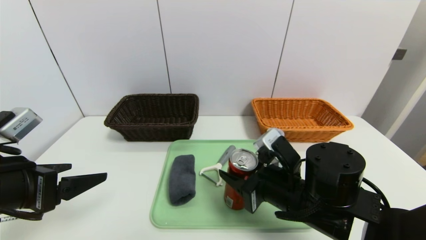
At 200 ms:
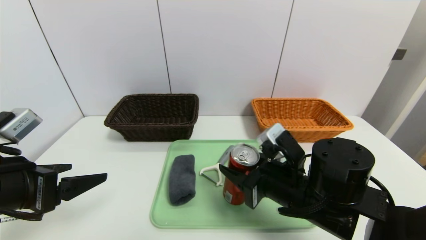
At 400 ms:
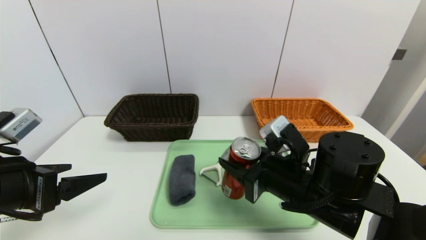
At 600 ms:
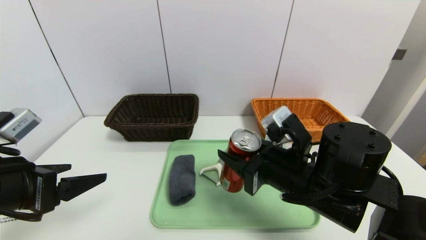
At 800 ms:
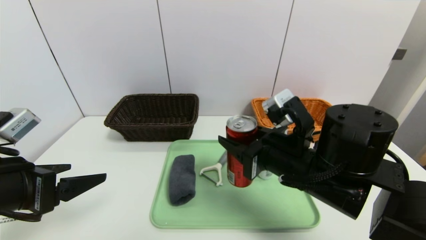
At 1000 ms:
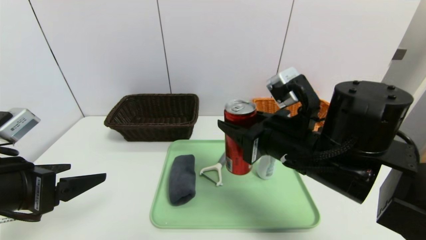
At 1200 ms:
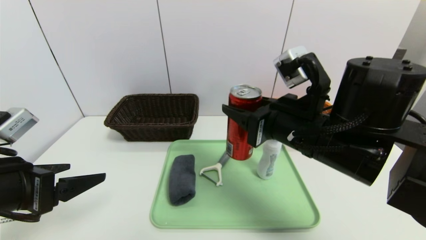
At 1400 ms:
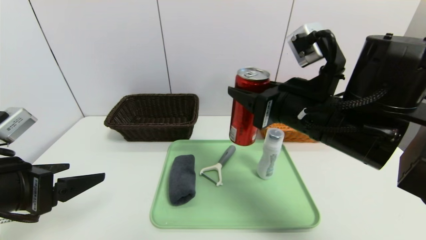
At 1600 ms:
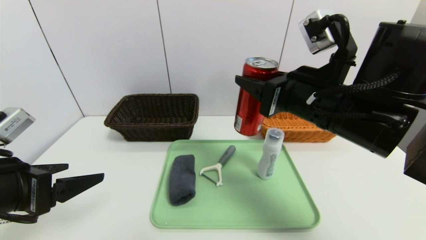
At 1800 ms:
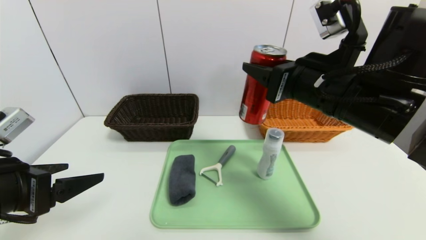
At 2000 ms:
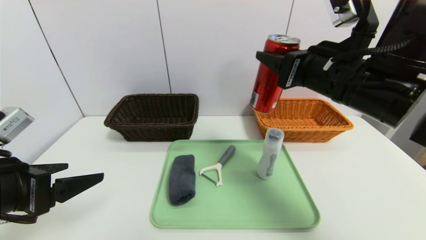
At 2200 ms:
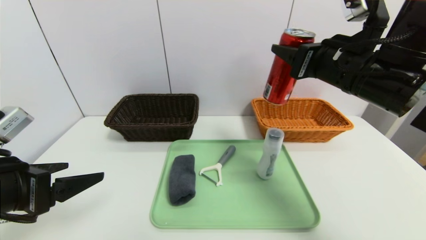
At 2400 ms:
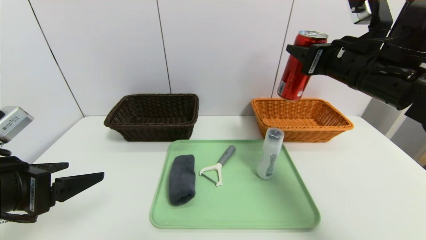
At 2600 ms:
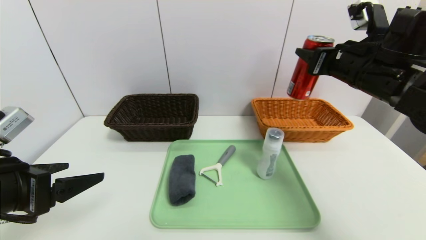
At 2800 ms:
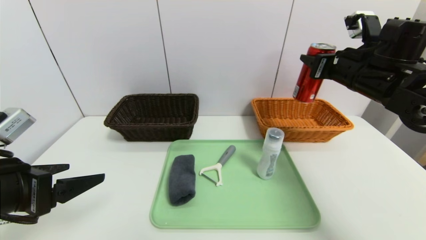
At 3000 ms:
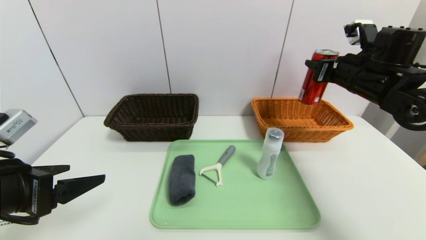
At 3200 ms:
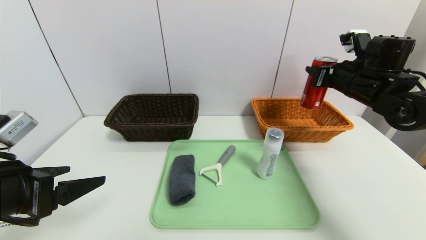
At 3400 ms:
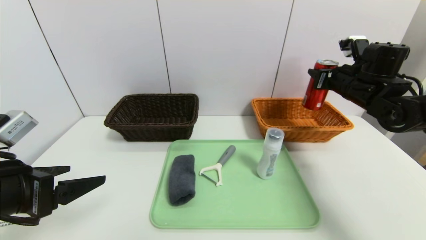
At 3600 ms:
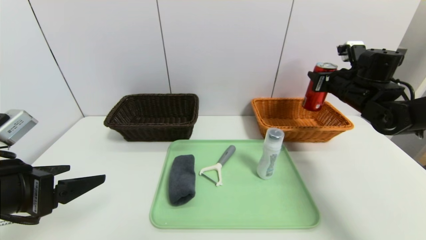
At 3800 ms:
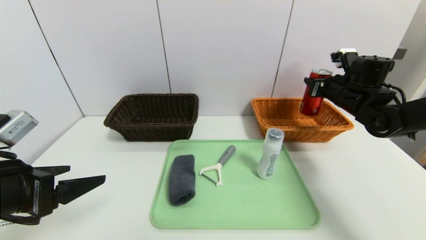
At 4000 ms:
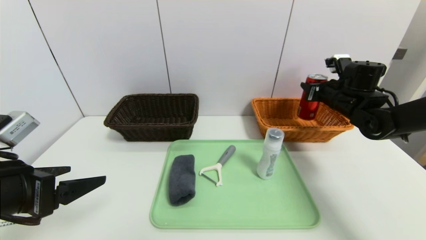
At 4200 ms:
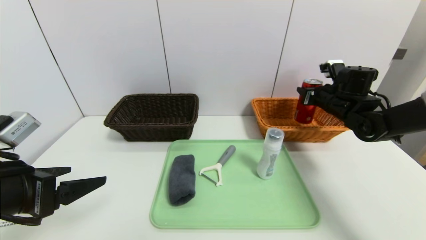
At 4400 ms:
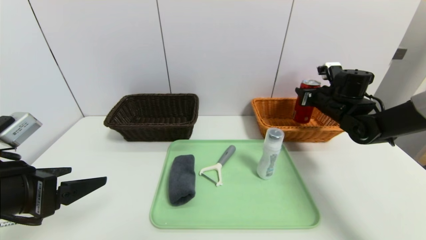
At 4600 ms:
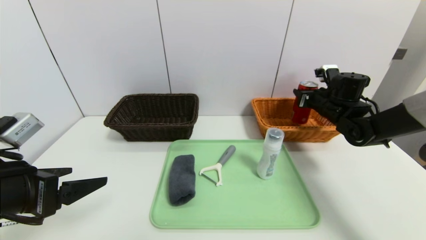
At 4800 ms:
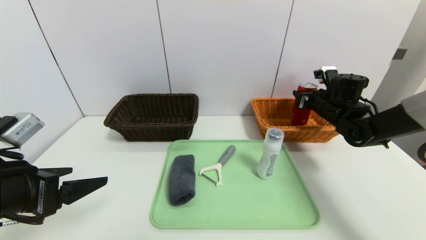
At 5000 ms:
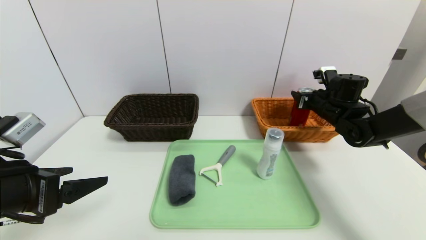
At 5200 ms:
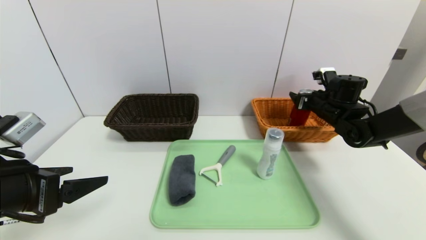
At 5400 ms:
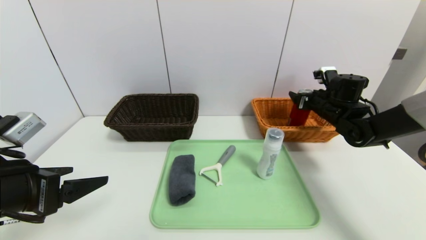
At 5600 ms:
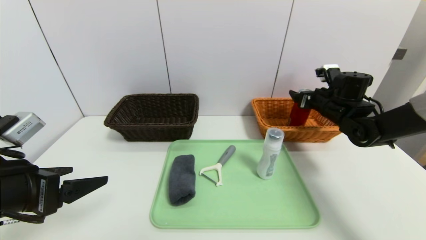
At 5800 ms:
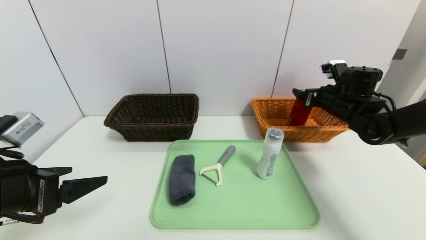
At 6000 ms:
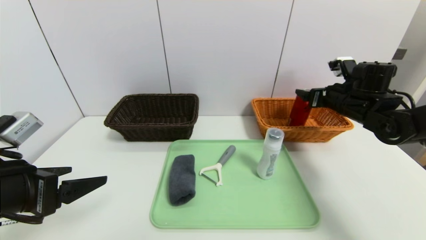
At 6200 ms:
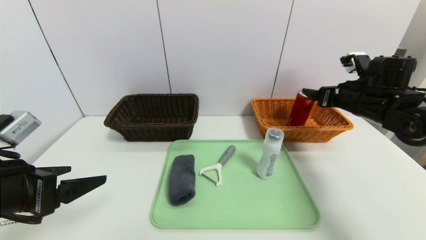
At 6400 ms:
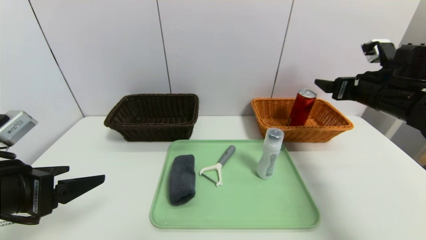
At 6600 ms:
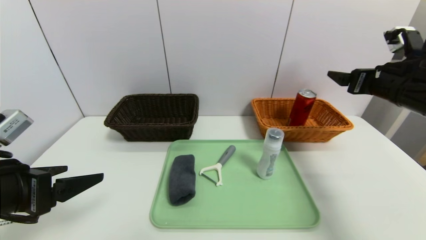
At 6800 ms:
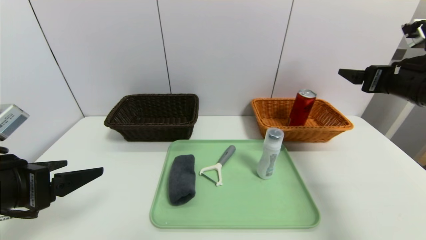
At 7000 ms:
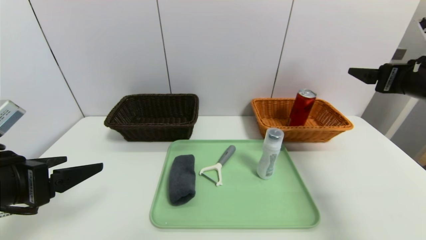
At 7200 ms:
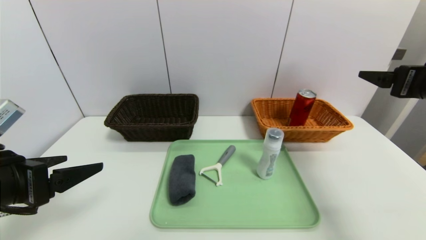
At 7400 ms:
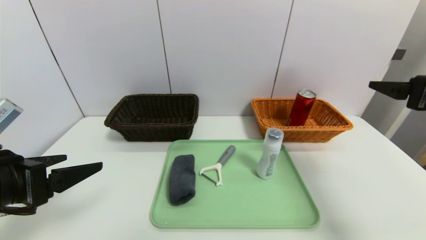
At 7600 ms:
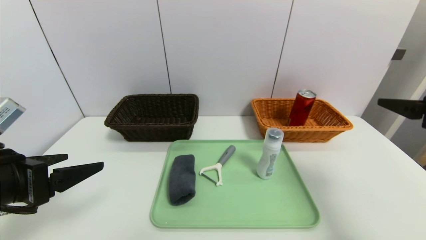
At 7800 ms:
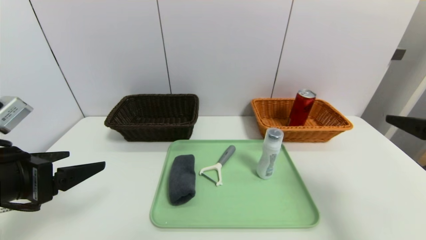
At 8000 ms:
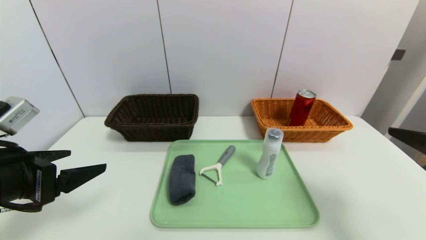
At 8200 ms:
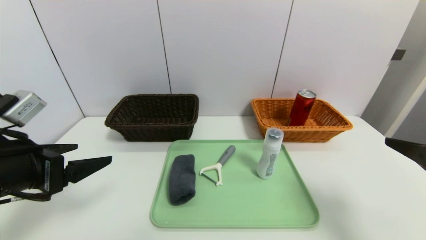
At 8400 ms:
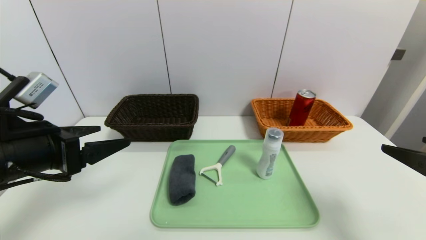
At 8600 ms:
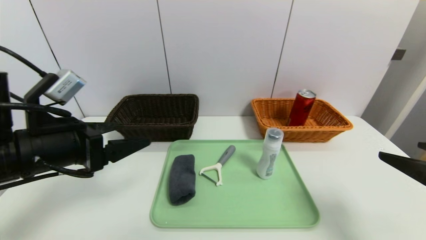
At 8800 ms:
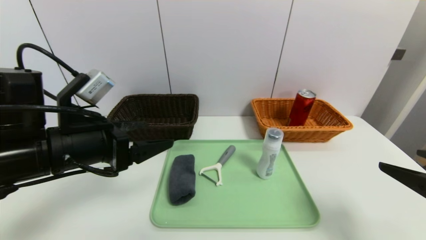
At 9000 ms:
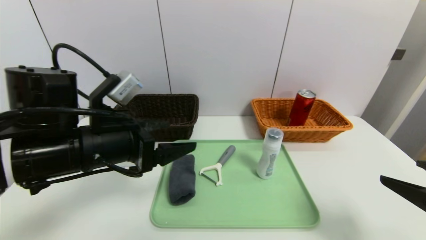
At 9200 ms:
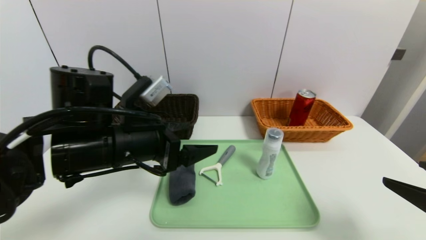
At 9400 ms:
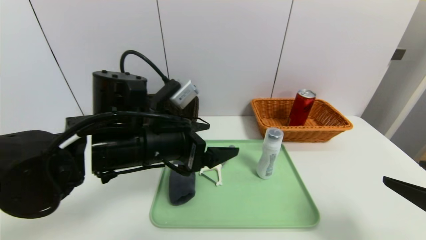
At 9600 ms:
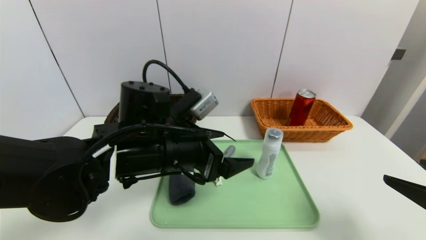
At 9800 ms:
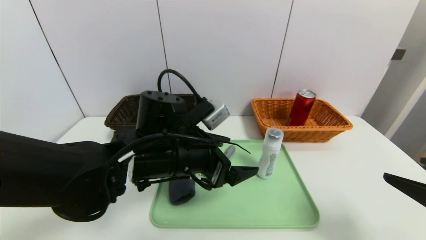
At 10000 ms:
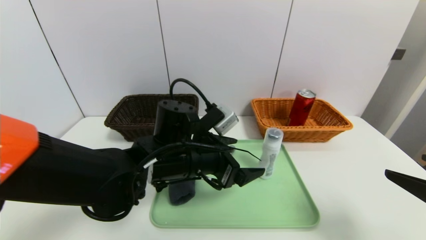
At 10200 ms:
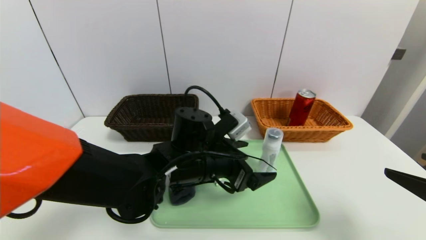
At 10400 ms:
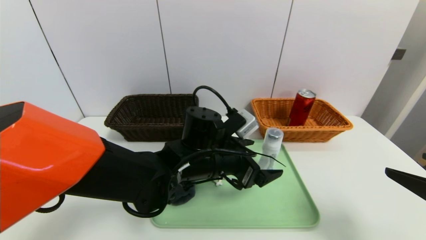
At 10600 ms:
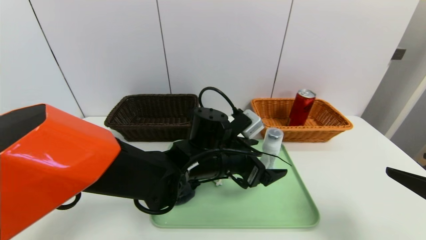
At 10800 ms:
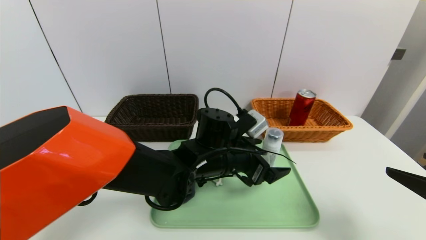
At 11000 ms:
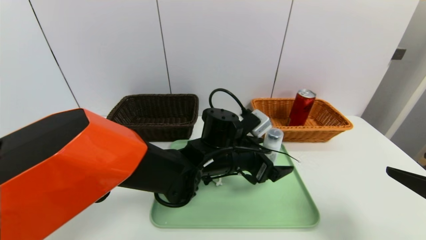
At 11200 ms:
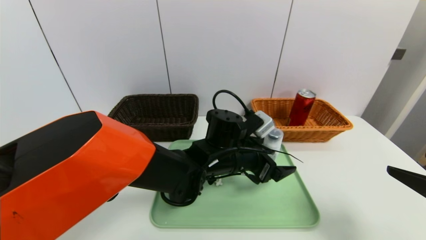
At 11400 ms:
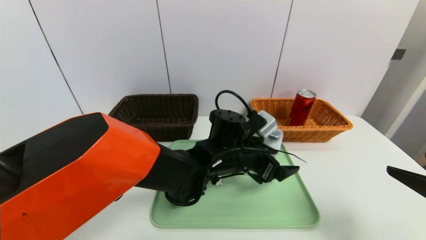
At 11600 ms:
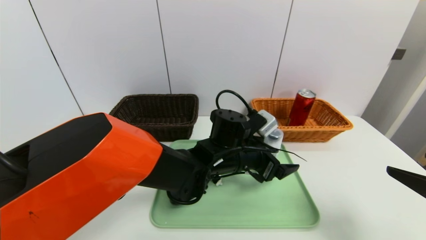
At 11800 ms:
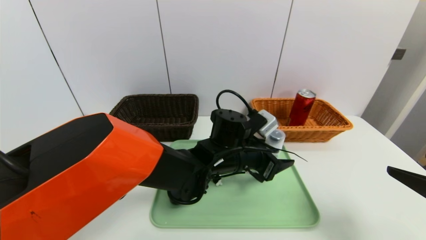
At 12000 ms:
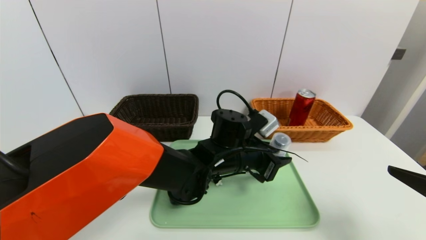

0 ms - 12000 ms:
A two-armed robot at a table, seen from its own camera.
Task of the whole recording: place the food in the right basket with the right gripper, and place the non food items in the left basket with the left gripper.
Step, 0 ms - 5600 ms: Grasp the coke and put it in the right basket.
0 ms - 1600 ms: The right gripper goes about 15 cm upward.
1600 ms - 3000 ms: The right gripper is displaced to the right and forward by approximately 20 cm.
3000 ms - 4400 ms: The right gripper heads downward and forward, covering about 10 cm.
4400 ms - 6000 ms: The right gripper ends up about 5 cm from where it was, and opens.
6000 ms - 7600 ms: The right gripper moves backward, approximately 20 cm.
7600 ms - 9000 ms: The right gripper moves backward and downward, roughly 10 cm. The left gripper heads to the right and forward, covering some 15 cm.
9000 ms - 10400 ms: The left gripper moves to the right and downward, about 20 cm.
10400 ms - 12000 ms: The left gripper is displaced to the right by approximately 5 cm, and closes.

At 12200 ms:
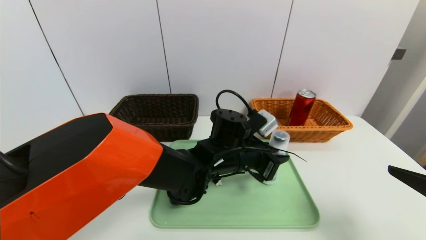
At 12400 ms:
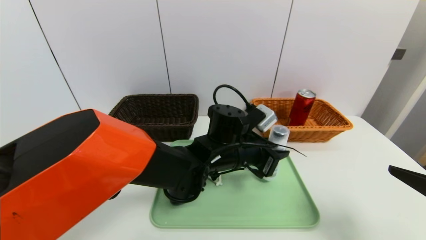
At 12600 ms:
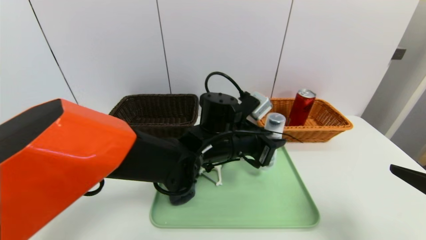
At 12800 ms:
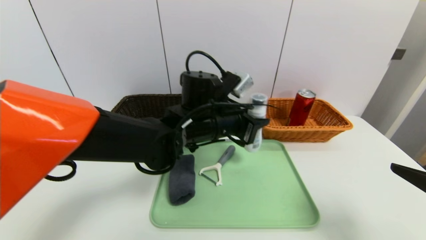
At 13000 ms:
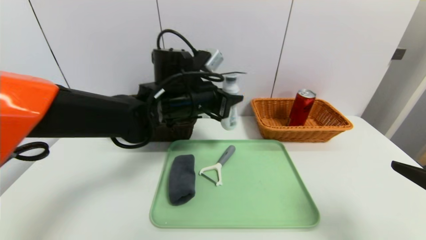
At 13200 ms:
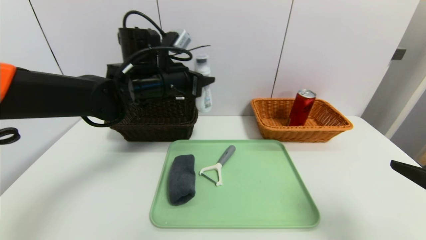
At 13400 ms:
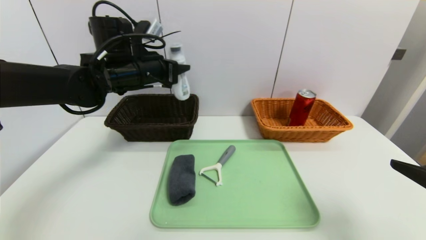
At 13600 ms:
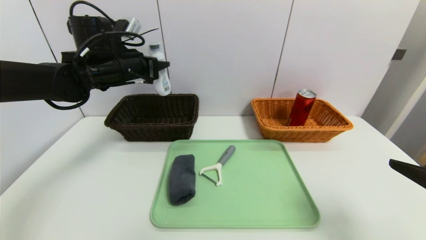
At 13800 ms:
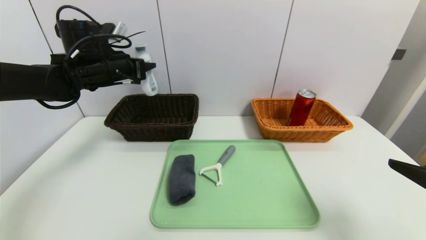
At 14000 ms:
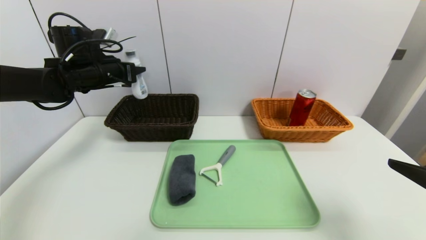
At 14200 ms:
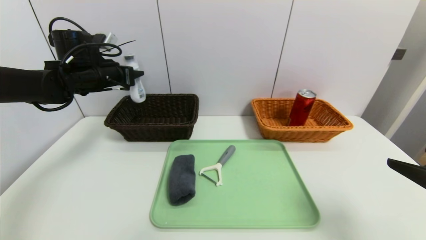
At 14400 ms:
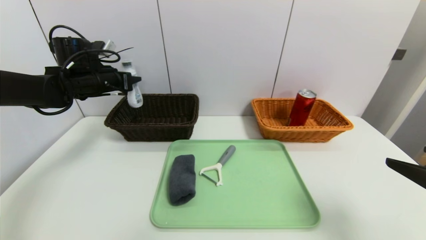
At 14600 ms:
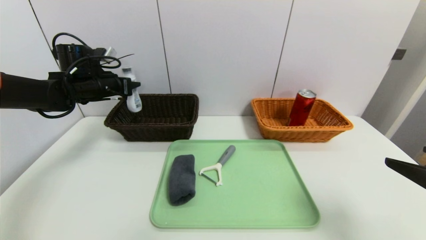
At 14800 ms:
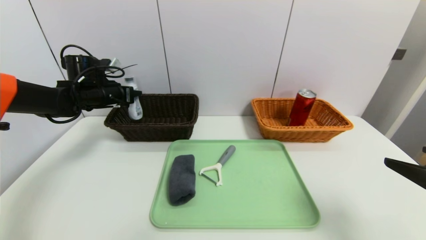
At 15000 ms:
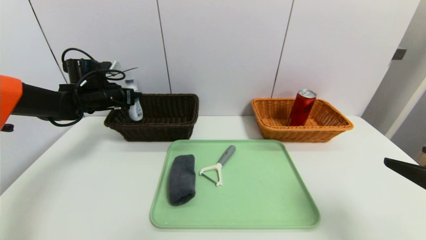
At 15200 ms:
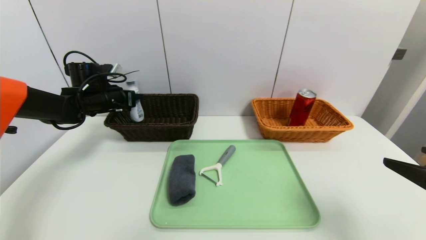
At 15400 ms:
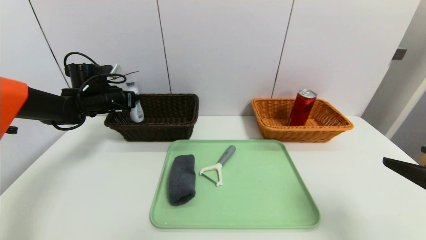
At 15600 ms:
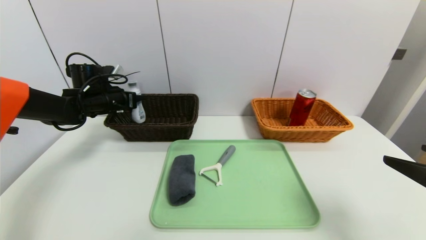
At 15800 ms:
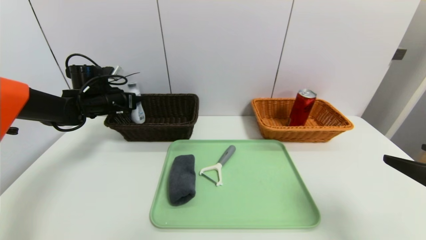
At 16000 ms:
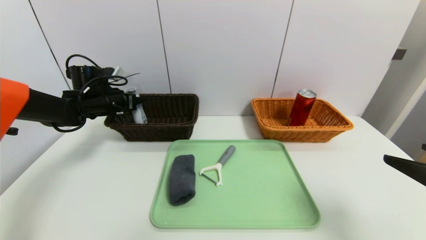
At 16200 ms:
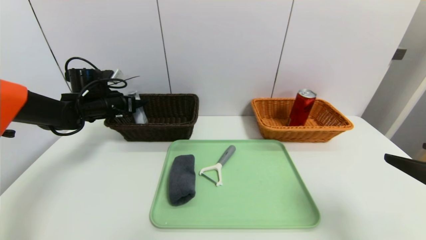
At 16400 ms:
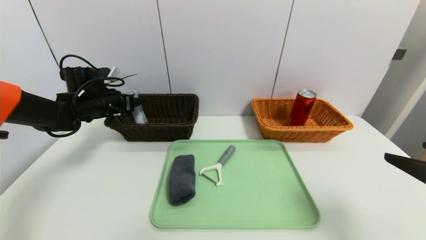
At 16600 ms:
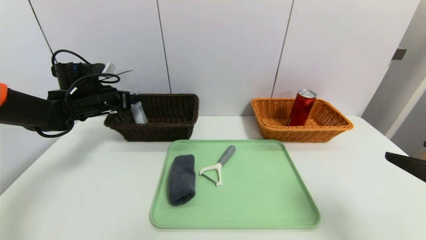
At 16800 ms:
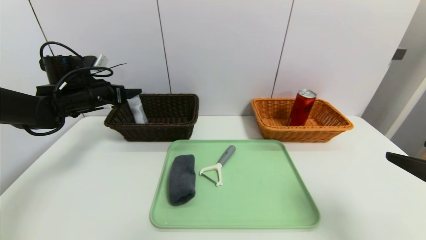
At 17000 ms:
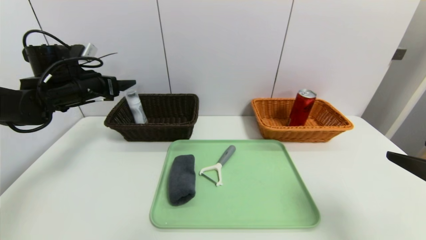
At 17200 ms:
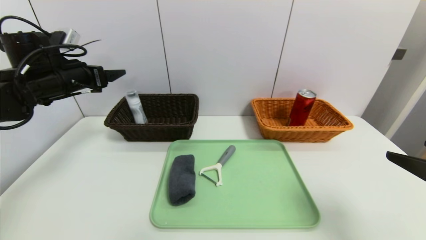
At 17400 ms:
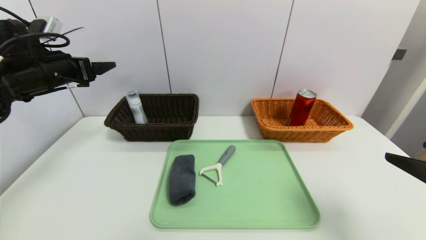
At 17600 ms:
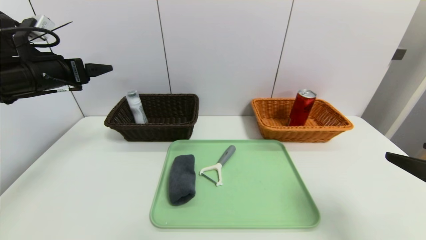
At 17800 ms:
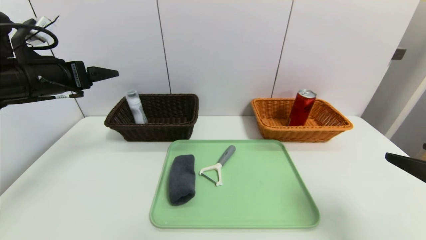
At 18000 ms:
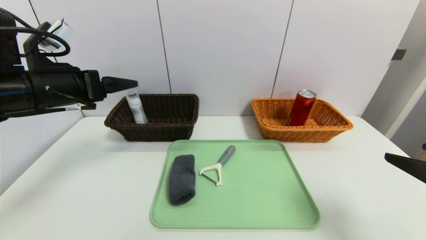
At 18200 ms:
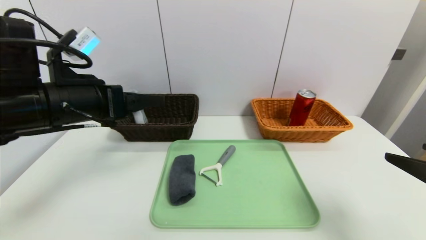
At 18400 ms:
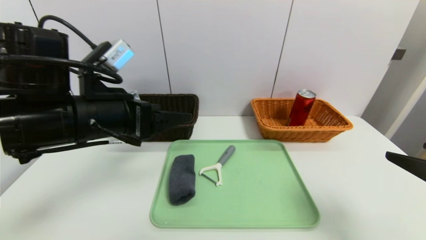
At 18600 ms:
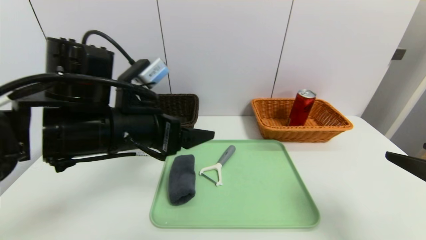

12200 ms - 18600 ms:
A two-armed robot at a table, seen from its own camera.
Task of the whole recording: place the food in the right basket with the right gripper, and place the non food items in the left basket with the left gripper.
Step, 12200 ms - 16400 ms: Grasp the cleaning agent and put it in the left basket.
12200 ms - 13800 ms: The left gripper heads to the left and upward, covering some 30 cm.
13800 ms - 15400 ms: The left gripper travels downward and to the left by some 10 cm.
15400 ms - 17000 ms: The left gripper travels backward and upward by some 10 cm, and opens up.
17000 ms - 18600 ms: The left gripper is displaced to the right and backward by approximately 25 cm.
